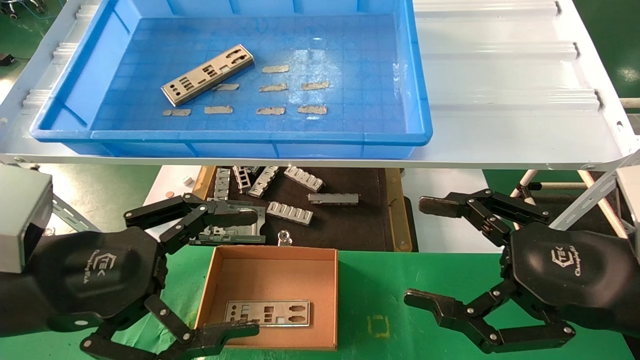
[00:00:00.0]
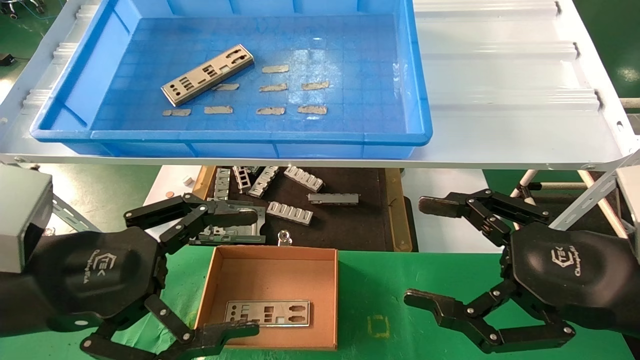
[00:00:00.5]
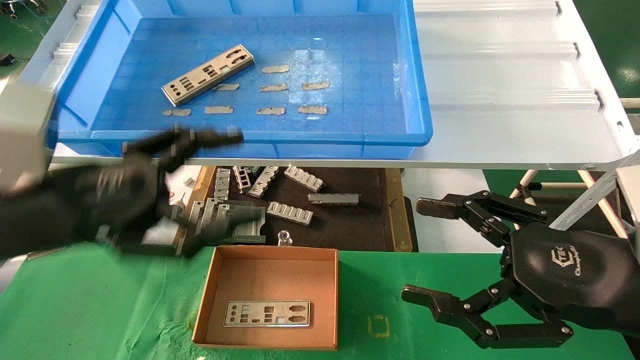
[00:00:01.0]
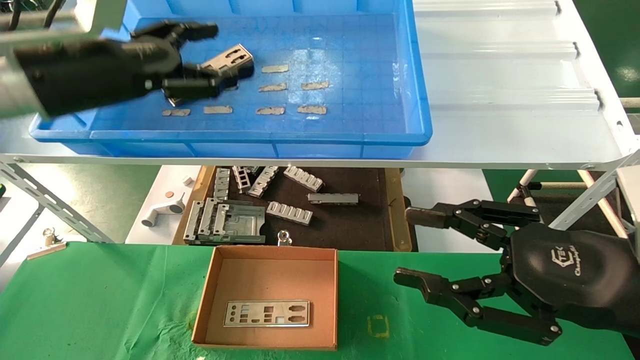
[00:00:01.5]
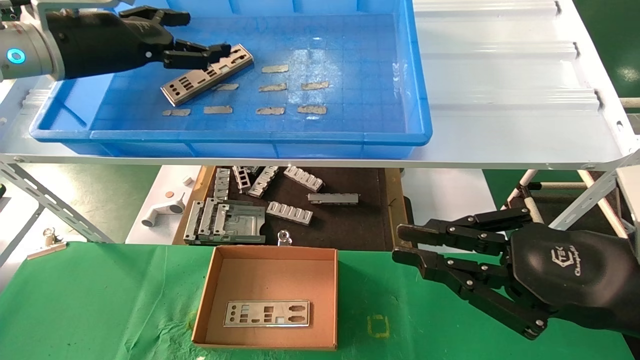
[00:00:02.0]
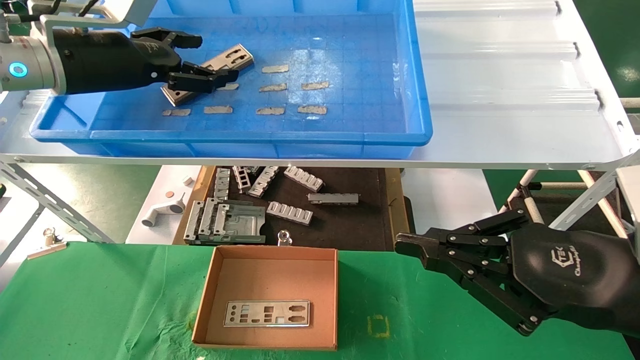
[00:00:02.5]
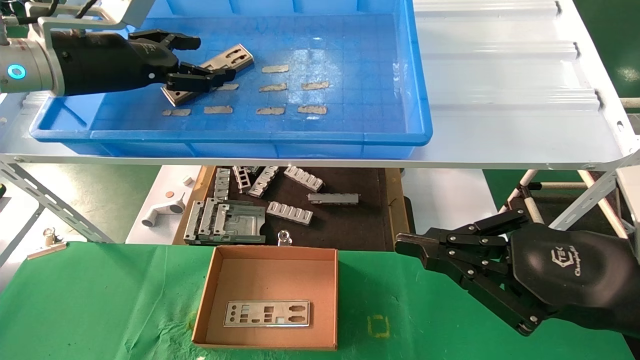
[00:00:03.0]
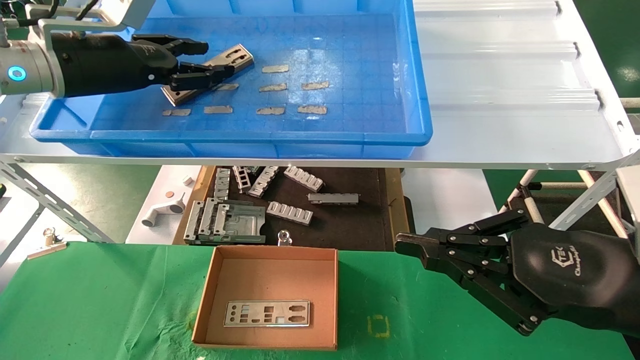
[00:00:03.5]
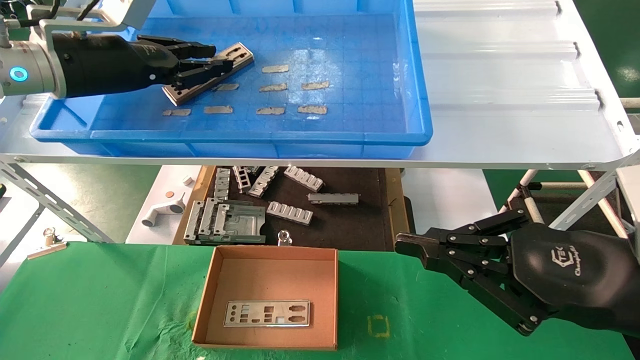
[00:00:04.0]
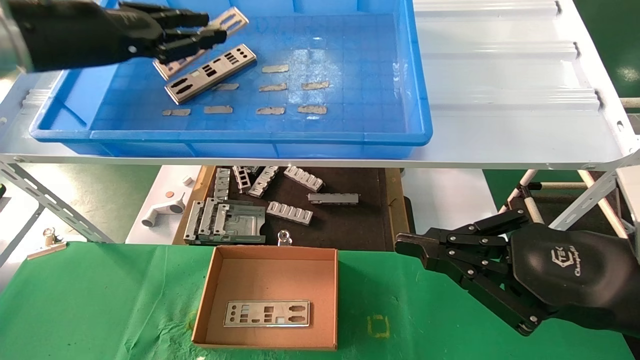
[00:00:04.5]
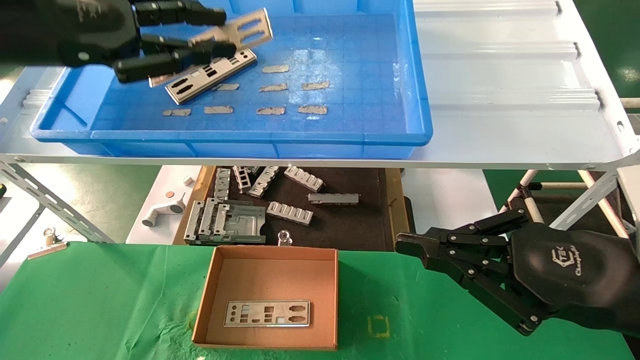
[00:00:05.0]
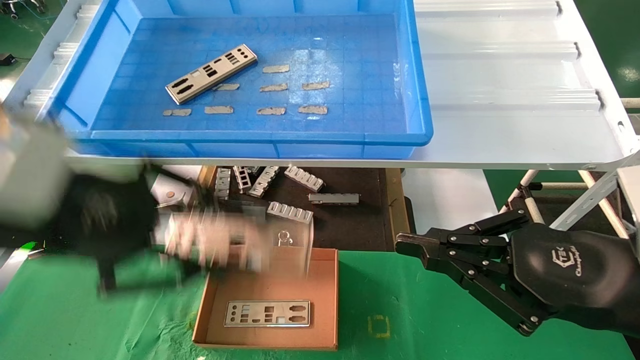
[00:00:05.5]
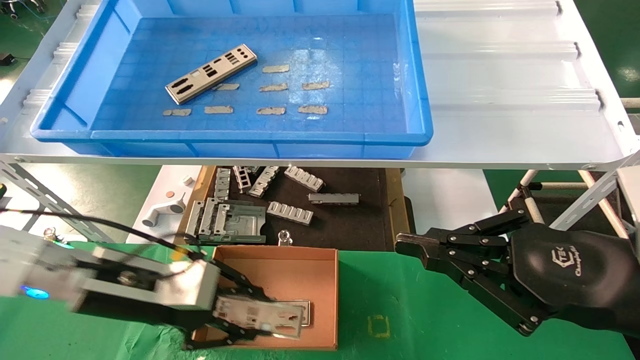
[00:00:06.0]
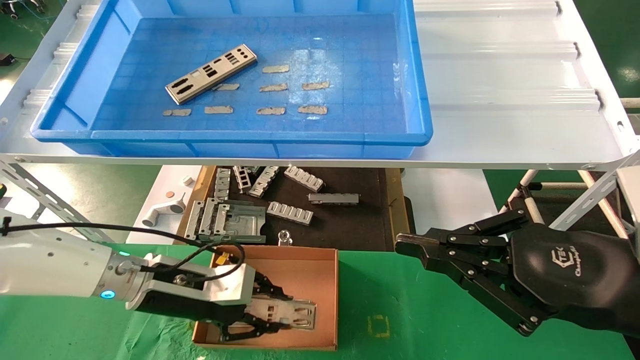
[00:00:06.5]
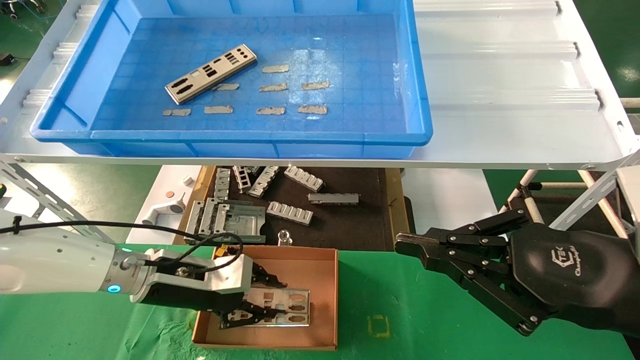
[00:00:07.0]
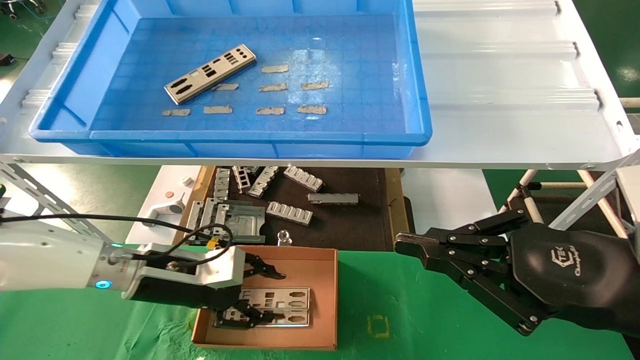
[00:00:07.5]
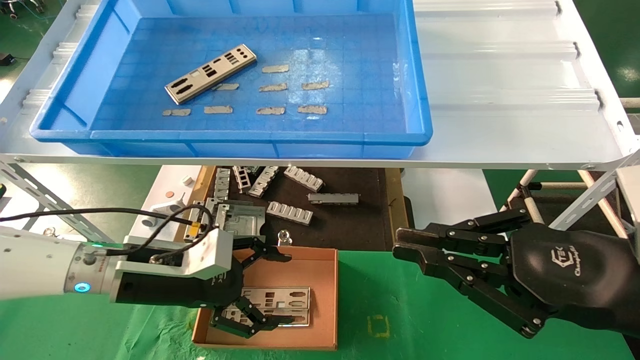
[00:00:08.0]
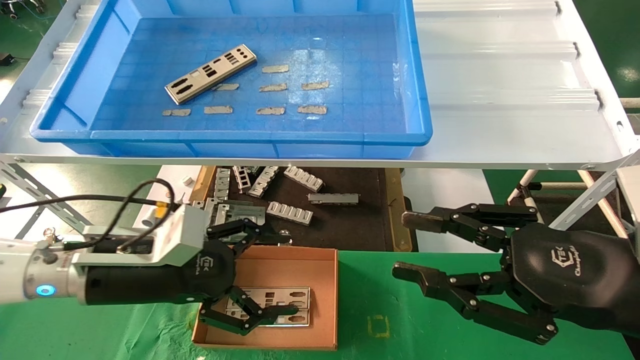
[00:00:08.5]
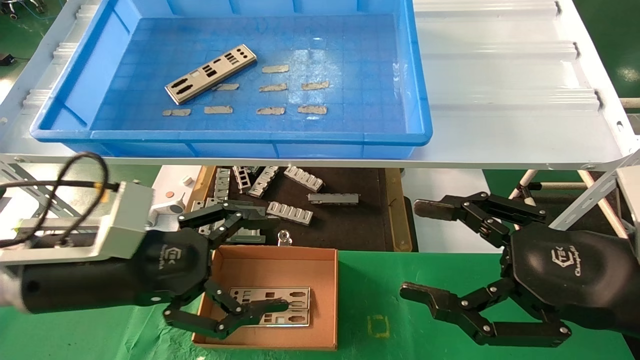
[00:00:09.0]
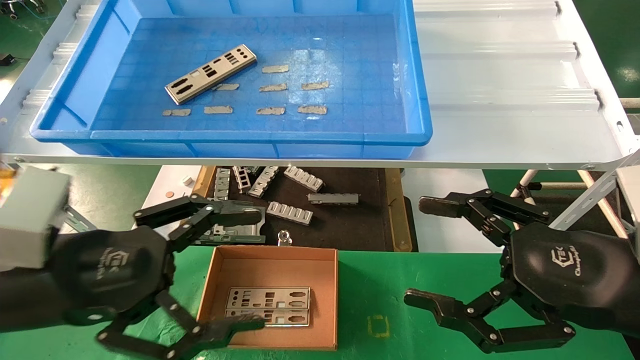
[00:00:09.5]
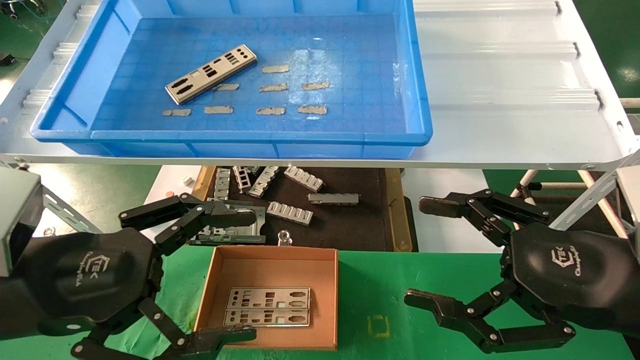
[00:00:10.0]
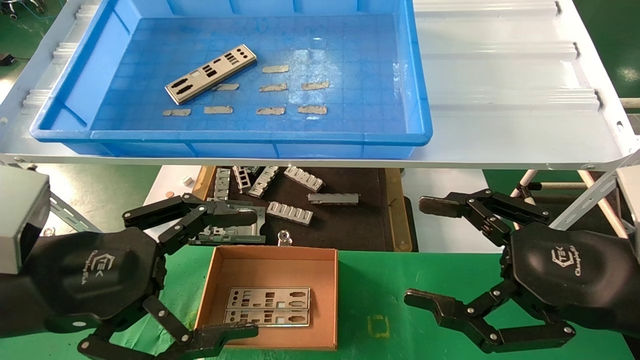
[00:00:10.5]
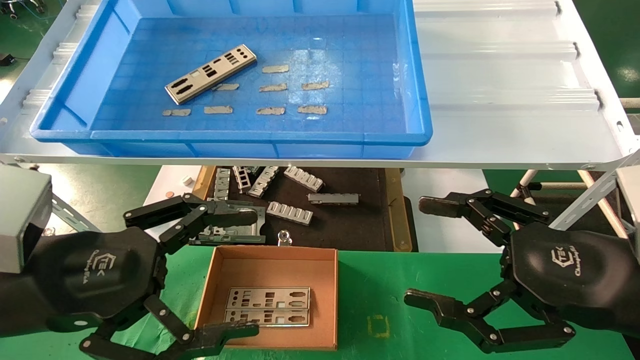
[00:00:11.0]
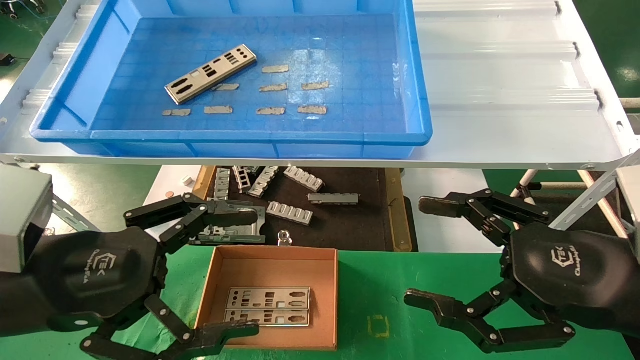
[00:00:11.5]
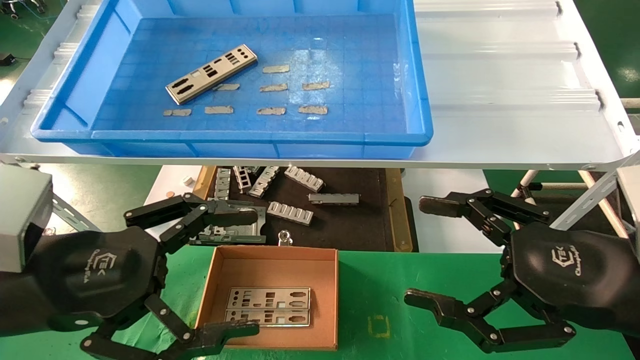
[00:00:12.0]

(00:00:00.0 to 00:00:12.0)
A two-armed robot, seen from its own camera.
Task of the whole recording: pick up the parts on the tray and put them in the cardboard box.
Step, 00:00:01.0 - 00:00:04.0: Pick up the IO bracket from the container box.
Step, 00:00:04.5 - 00:00:07.0: Place the IO bracket into the ingredient slot.
00:00:00.0 - 00:00:02.0: The left gripper moves forward and upward, roughly 25 cm, while the right gripper closes its fingers.
00:00:02.0 - 00:00:04.0: The left gripper closes.
00:00:04.0 - 00:00:06.0: The left gripper moves downward and backward, roughly 25 cm.
00:00:06.0 - 00:00:08.0: The left gripper opens up.
00:00:08.0 - 00:00:10.0: The right gripper opens its fingers, while the left gripper is displaced backward and upward by some 15 cm.
00:00:10.0 - 00:00:12.0: Both grippers stay about where they are.

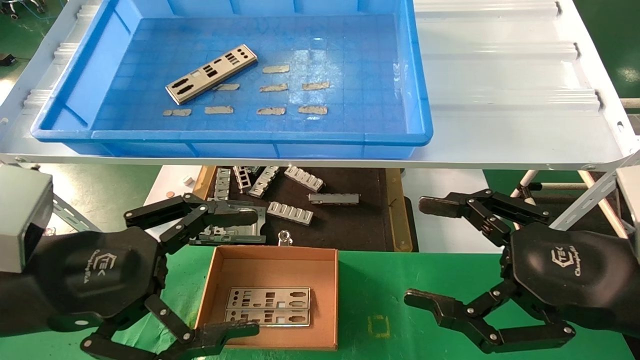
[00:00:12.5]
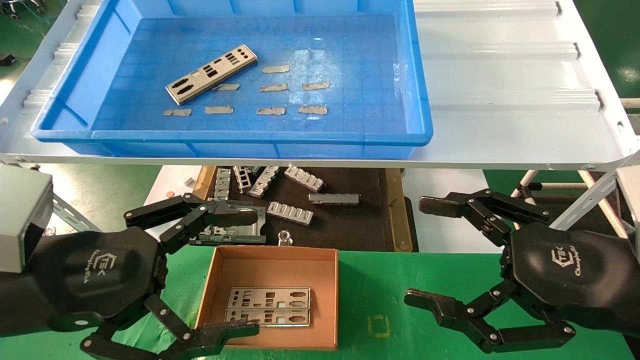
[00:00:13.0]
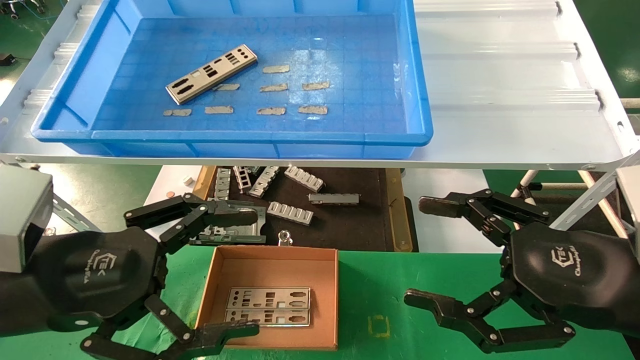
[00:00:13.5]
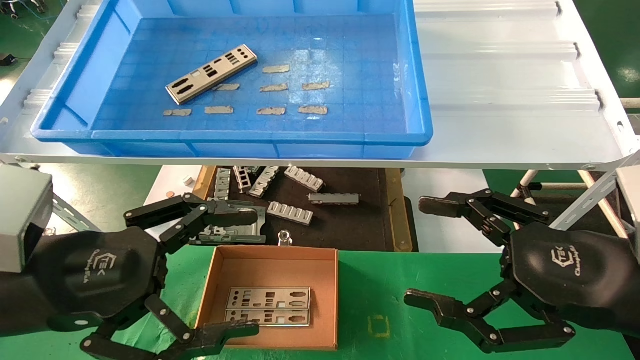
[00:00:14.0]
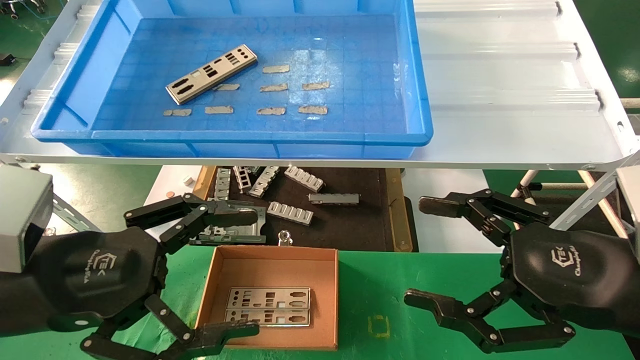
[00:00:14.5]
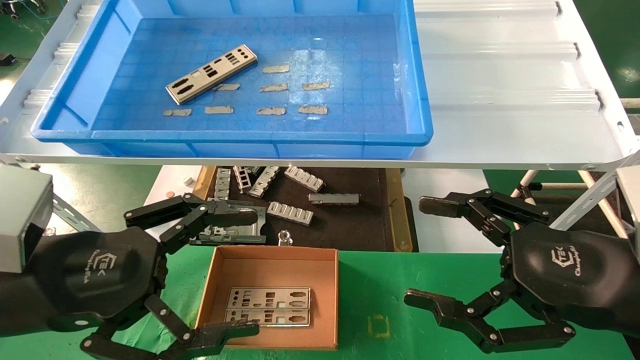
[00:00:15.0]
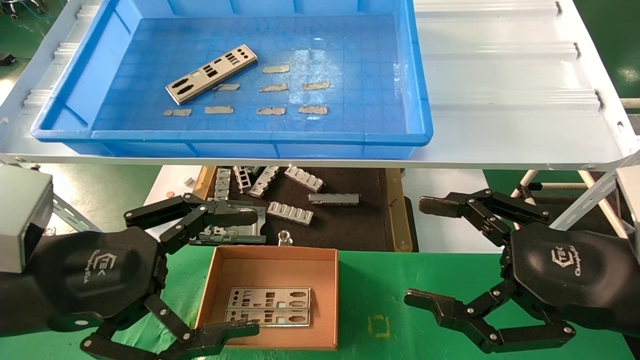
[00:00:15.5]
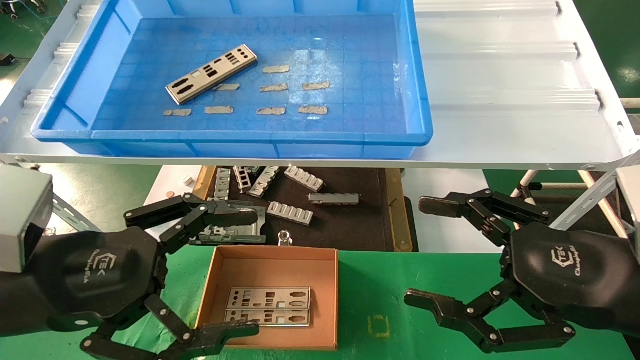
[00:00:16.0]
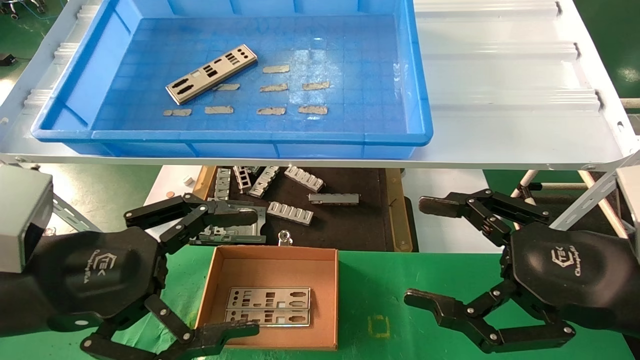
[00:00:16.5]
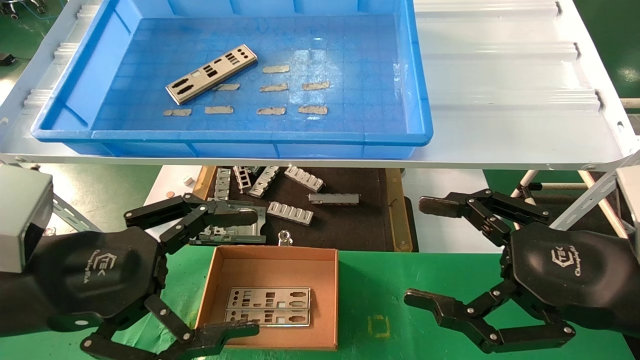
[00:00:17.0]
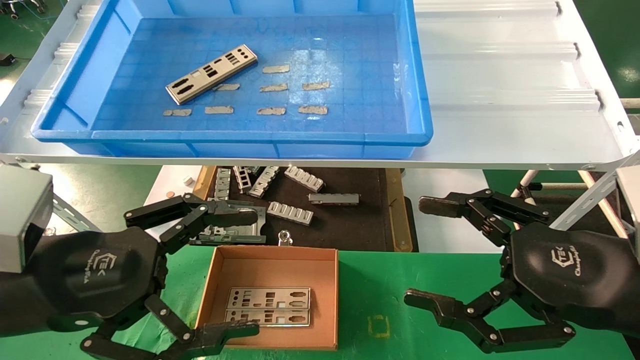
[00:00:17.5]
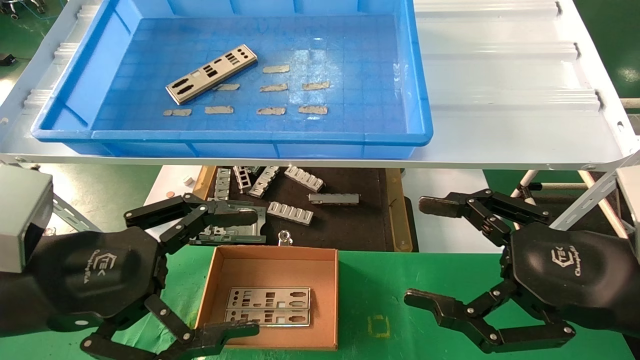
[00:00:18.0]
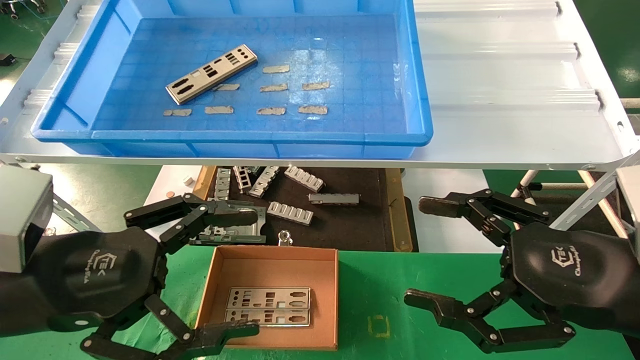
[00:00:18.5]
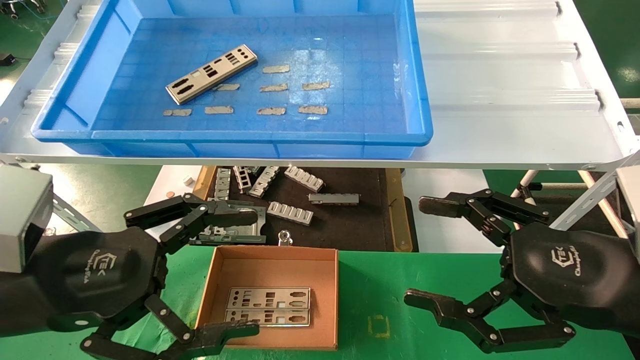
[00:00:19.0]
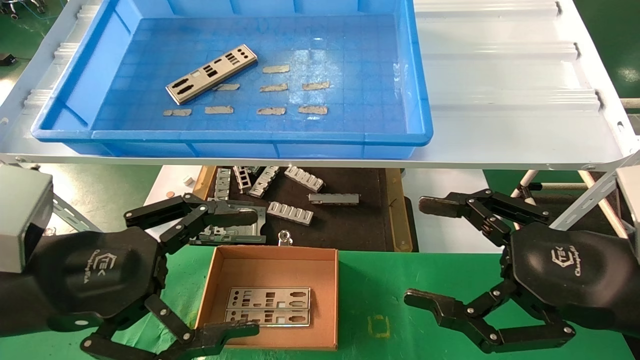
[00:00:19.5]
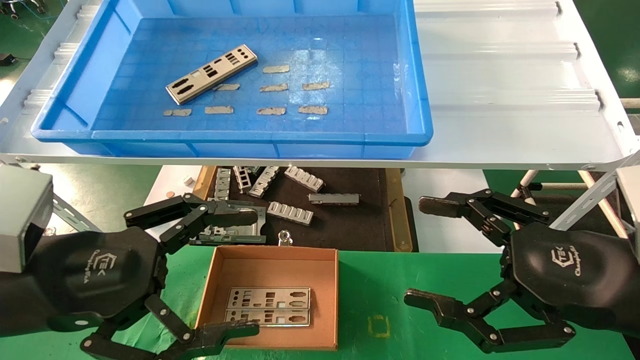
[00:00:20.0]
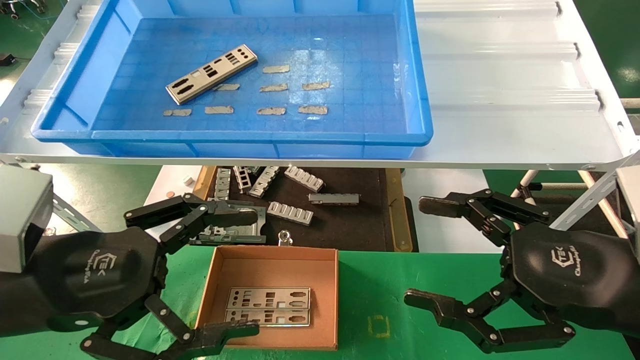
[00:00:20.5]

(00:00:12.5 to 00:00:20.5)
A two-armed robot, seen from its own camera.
Task of the whole recording: pick up the parts on the tray and put them in the cardboard box.
00:00:12.5 - 00:00:20.5: Both grippers stay about where they are.
